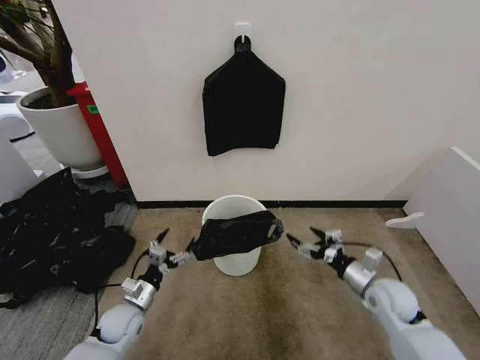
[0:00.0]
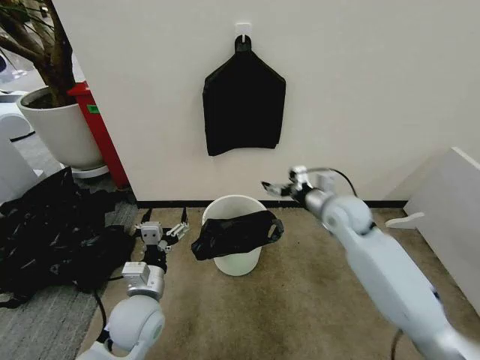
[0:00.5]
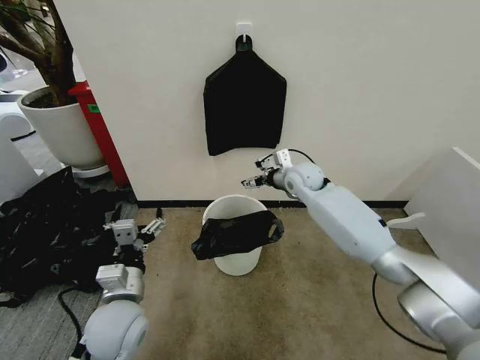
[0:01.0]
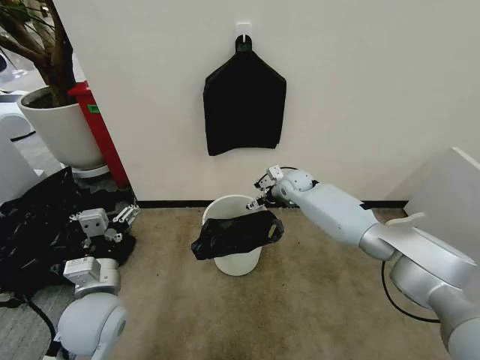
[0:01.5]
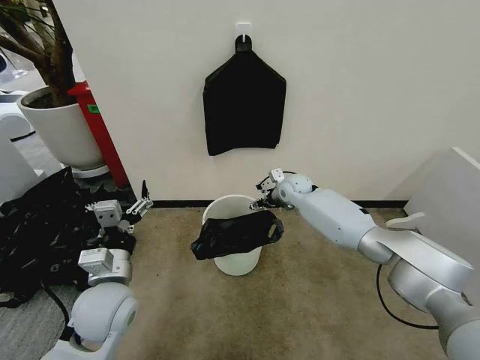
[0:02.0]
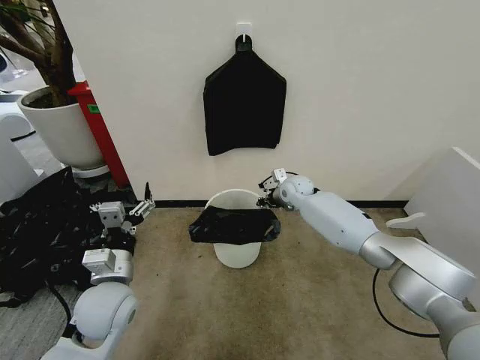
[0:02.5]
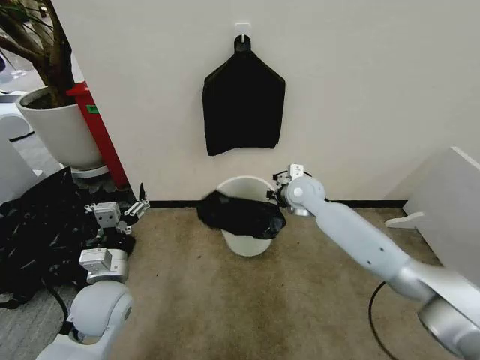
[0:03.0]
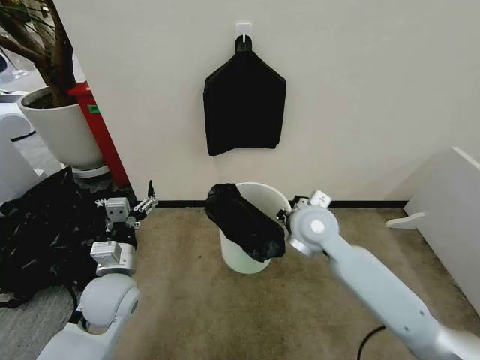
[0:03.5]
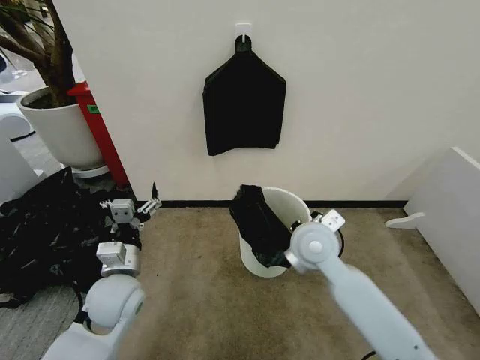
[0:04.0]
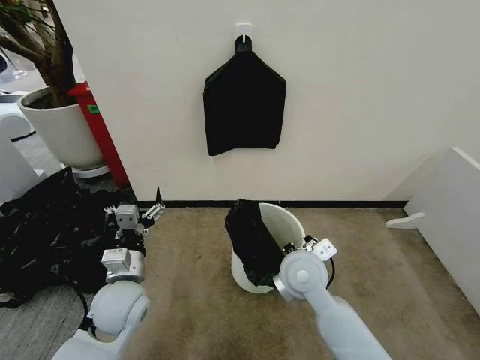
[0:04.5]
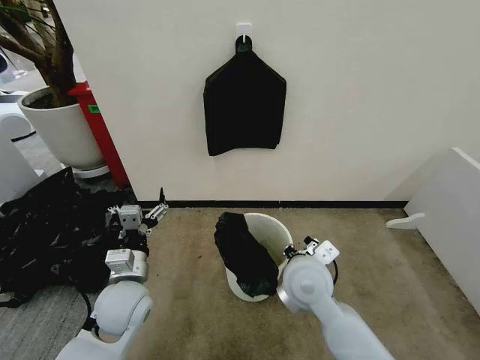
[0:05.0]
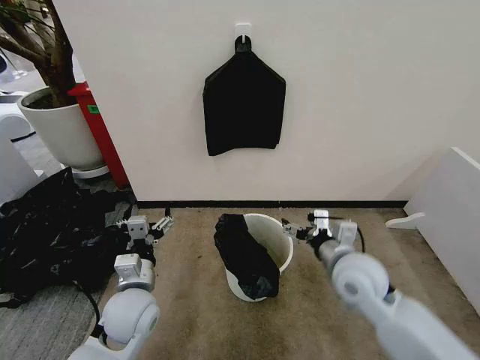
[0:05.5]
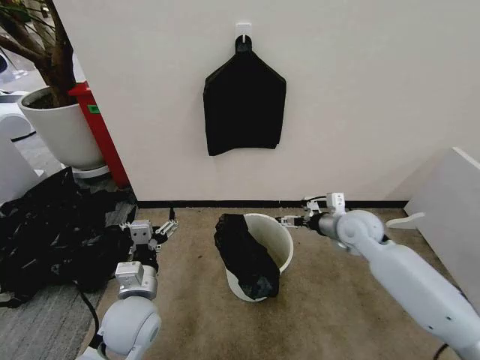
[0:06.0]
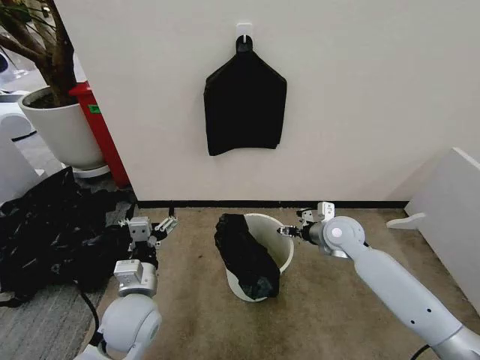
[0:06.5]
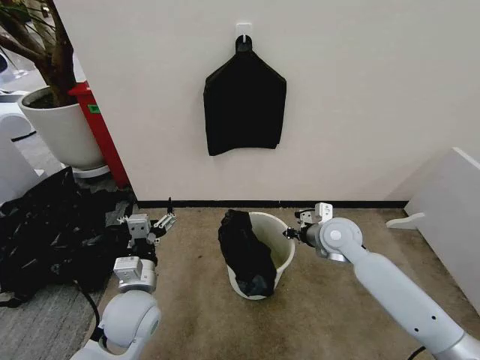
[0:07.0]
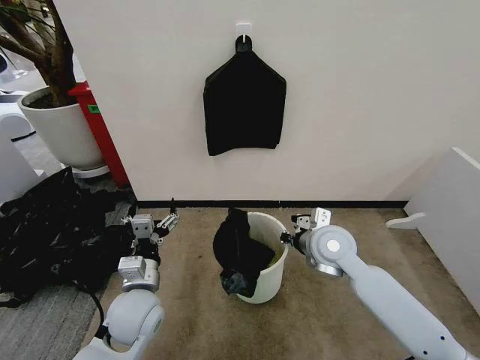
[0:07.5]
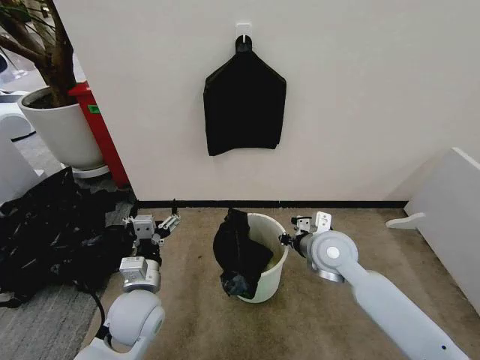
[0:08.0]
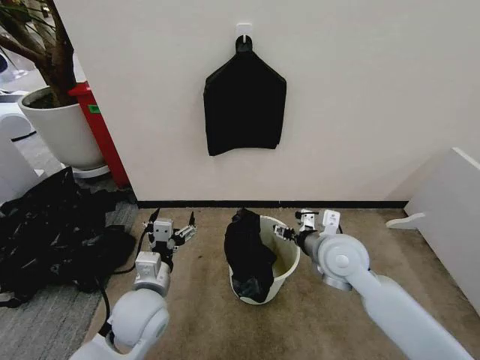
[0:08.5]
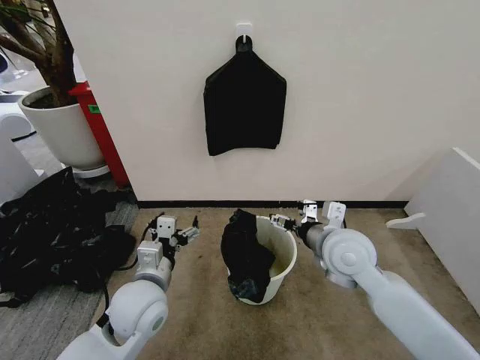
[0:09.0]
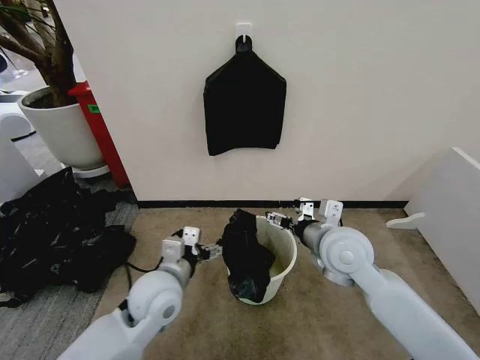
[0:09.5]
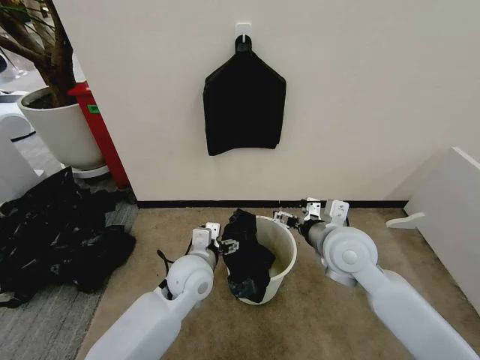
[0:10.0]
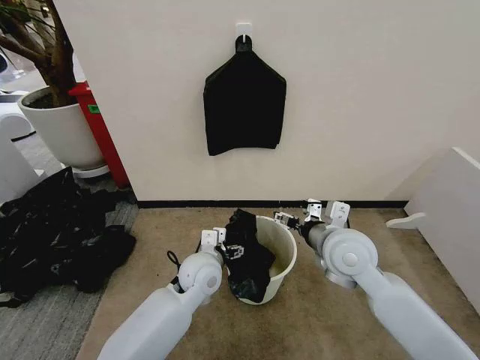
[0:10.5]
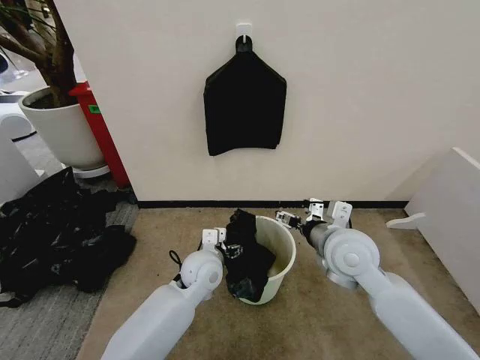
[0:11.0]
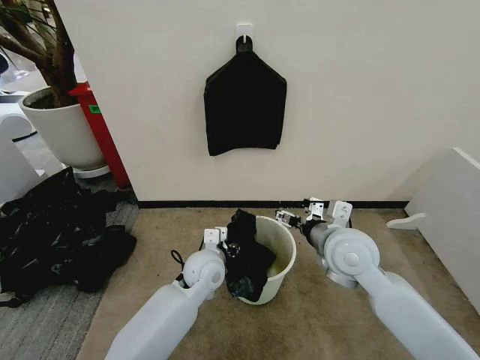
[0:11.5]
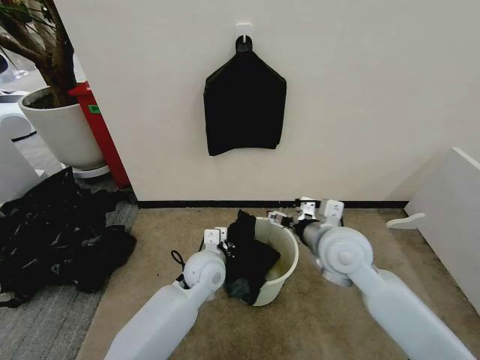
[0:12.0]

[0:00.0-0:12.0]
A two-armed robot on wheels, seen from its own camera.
Task of the whole recording: Place the garbage bag over the trash bin.
0:00.0 to 0:02.0: The left gripper is displaced upward by some 20 cm; the right gripper heads forward and to the left, covering roughly 35 cm, and closes its fingers.
0:02.0 to 0:04.0: The right gripper heads backward, covering about 25 cm, and closes.
0:04.0 to 0:06.0: The right gripper is displaced to the right and forward by approximately 15 cm, and opens. Meanwhile the left gripper shifts by roughly 5 cm.
0:06.0 to 0:08.0: The right gripper travels to the left and backward by about 10 cm, and closes.
0:08.0 to 0:10.0: The left gripper heads to the right and forward, covering approximately 10 cm; the right gripper travels upward by approximately 5 cm, and opens its fingers.
0:10.0 to 0:12.0: The left gripper moves some 5 cm, and closes up.

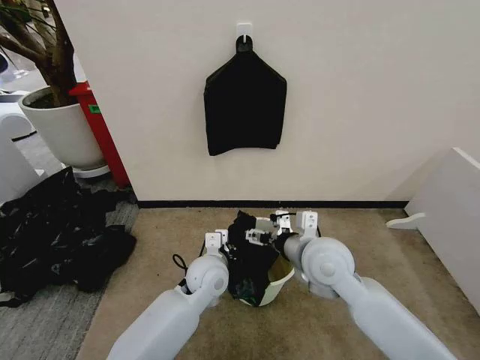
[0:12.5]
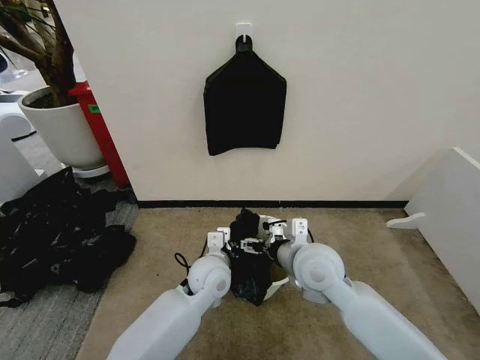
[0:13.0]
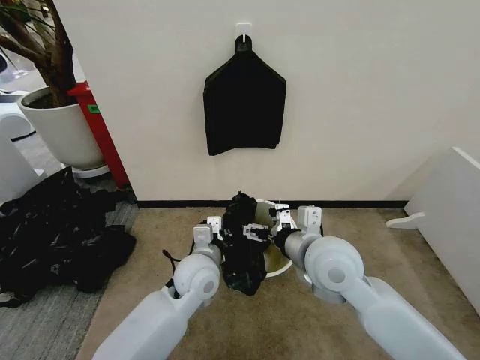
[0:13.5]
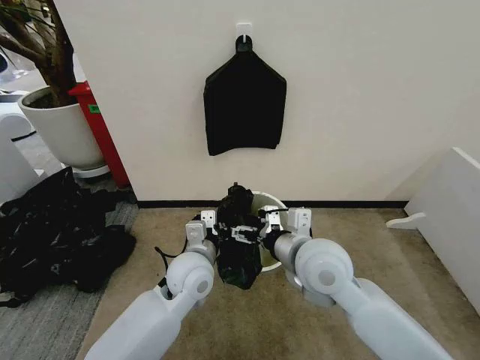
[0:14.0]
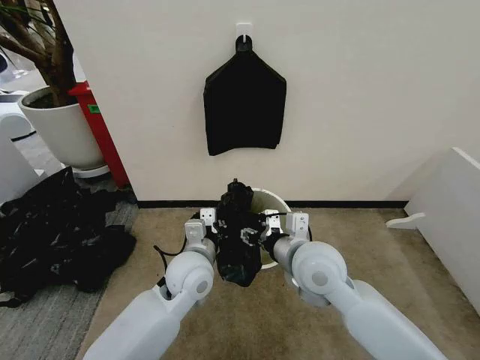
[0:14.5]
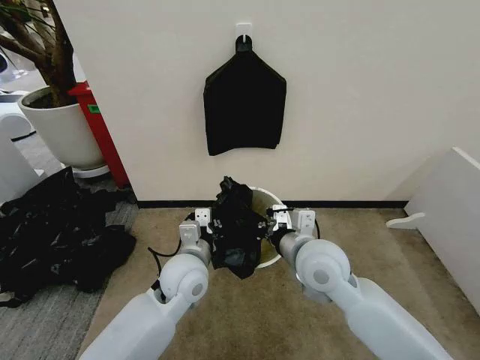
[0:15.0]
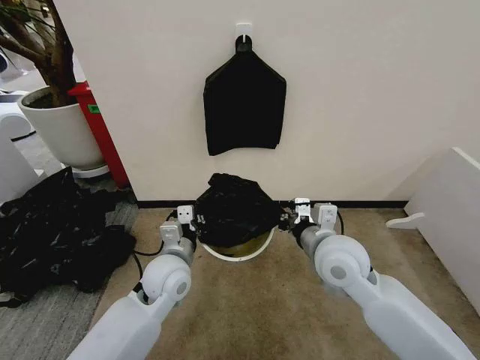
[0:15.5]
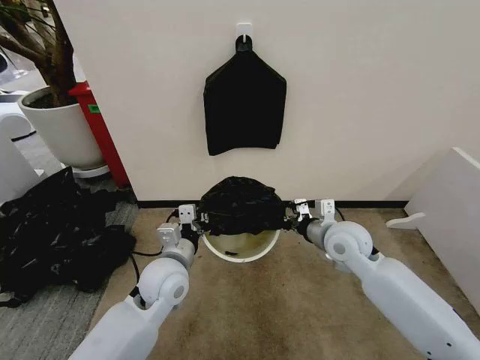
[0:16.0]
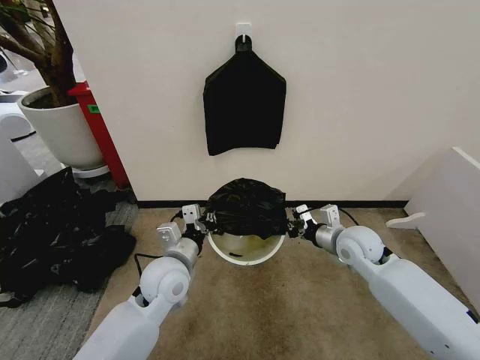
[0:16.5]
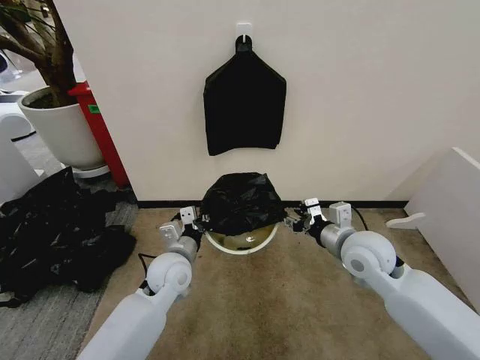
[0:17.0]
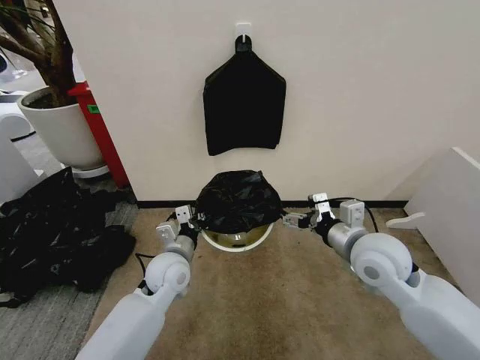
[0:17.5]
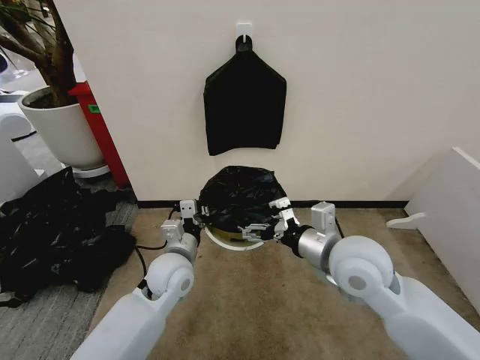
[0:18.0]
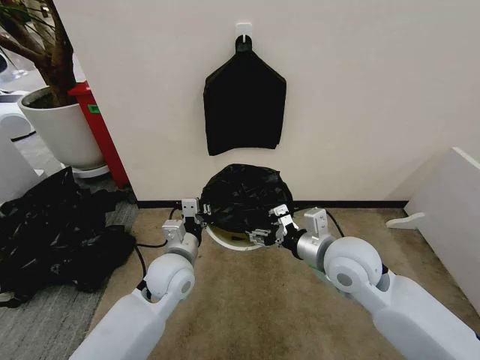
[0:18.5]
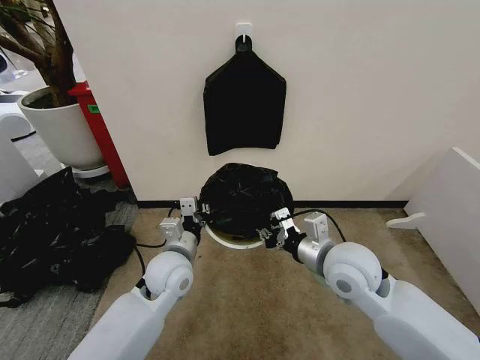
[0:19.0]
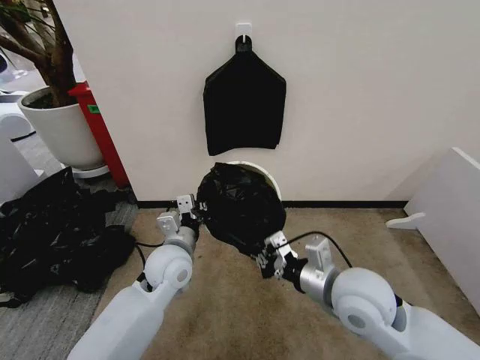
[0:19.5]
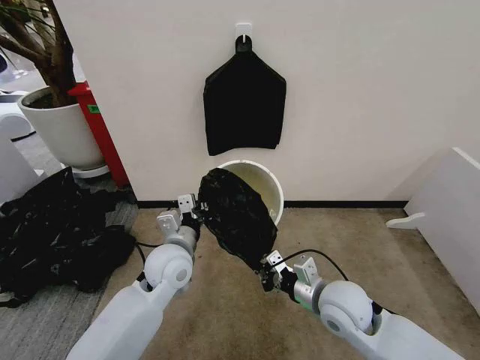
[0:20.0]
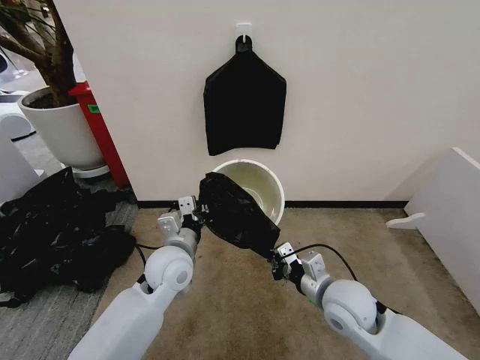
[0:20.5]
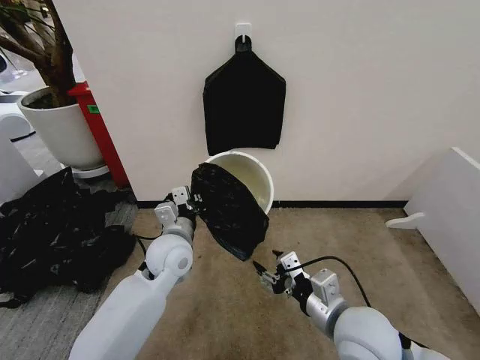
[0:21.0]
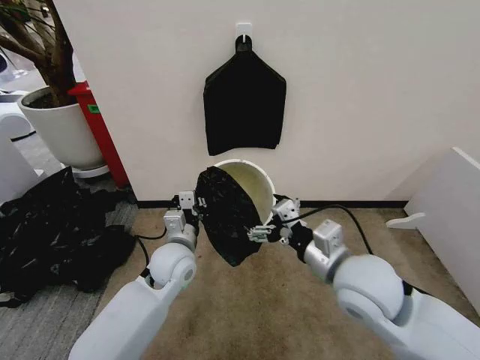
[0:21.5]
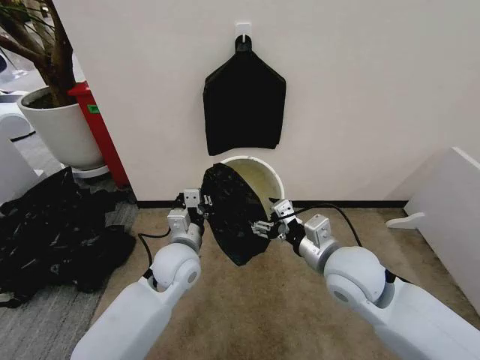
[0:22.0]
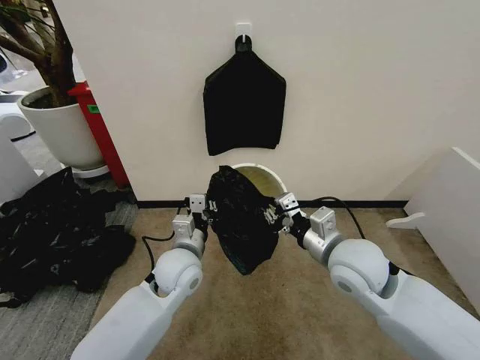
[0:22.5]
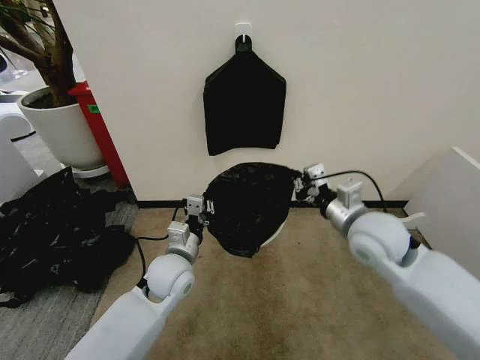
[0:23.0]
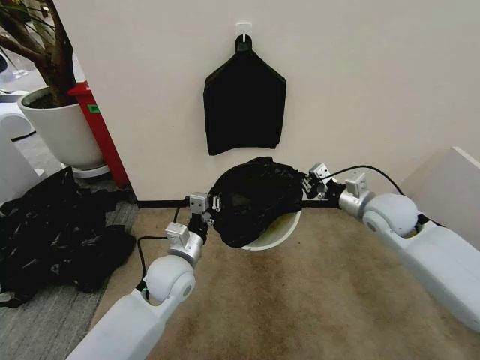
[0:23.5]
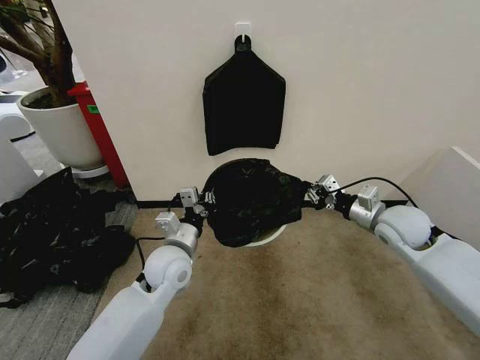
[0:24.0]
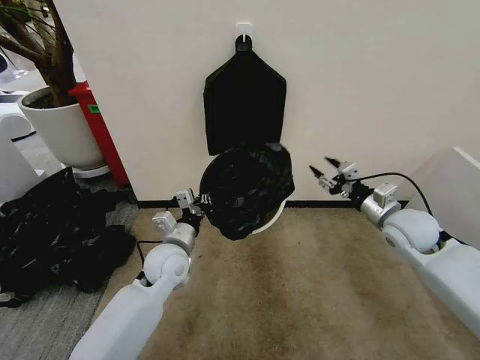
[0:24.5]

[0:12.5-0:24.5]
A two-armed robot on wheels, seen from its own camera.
Task of the whole recording: Place the garbage bag over the trash bin.
0:12.5 to 0:14.5: The left gripper shifts some 5 cm upward, while the right gripper closes up.
0:14.5 to 0:16.5: The right gripper is displaced to the right, forward and downward by some 20 cm, and closes its fingers. Meanwhile the left gripper ends up approximately 5 cm from where it was.
0:16.5 to 0:18.5: The right gripper heads backward, upward and to the left, covering some 15 cm, and opens.
0:18.5 to 0:20.5: The right gripper heads downward, covering approximately 10 cm, and closes its fingers.
0:20.5 to 0:22.5: The right gripper moves upward, roughly 10 cm, and opens, then closes again.
0:22.5 to 0:24.5: The right gripper moves to the right and forward, approximately 20 cm.

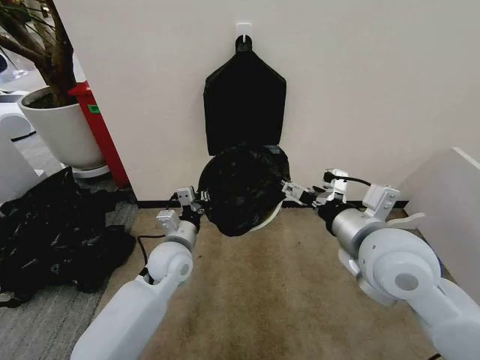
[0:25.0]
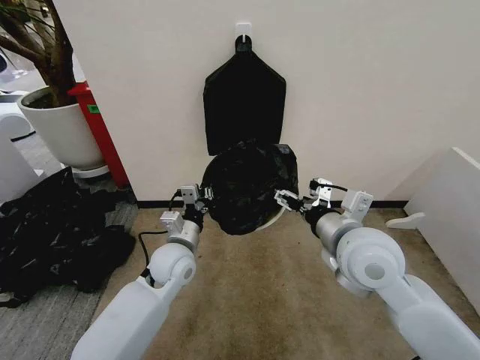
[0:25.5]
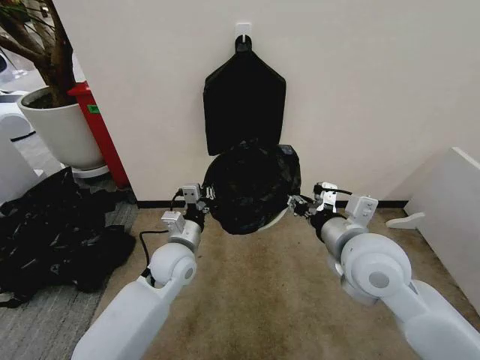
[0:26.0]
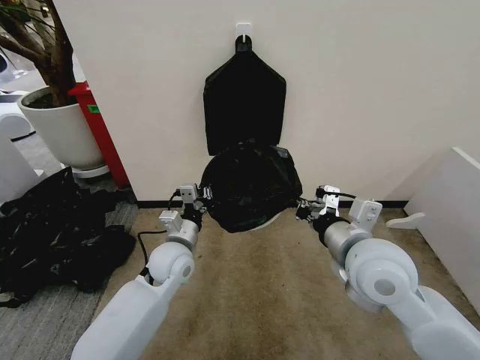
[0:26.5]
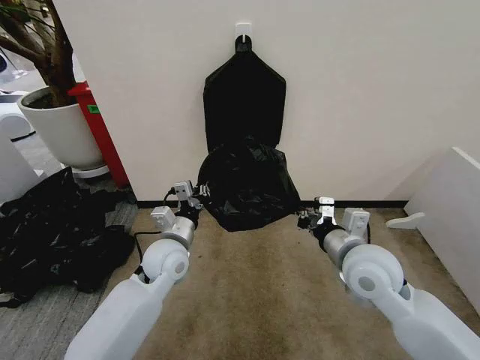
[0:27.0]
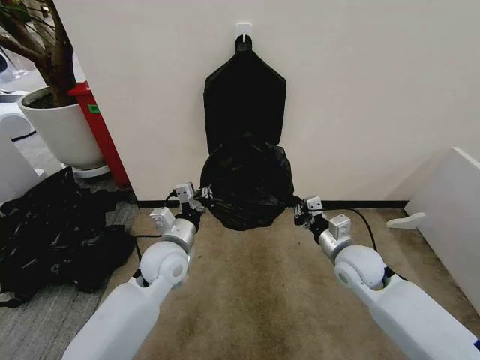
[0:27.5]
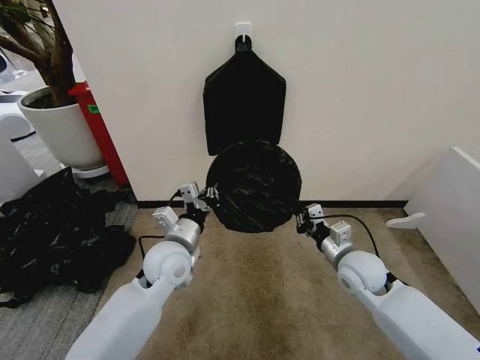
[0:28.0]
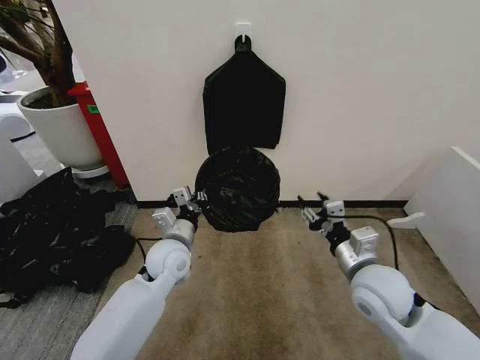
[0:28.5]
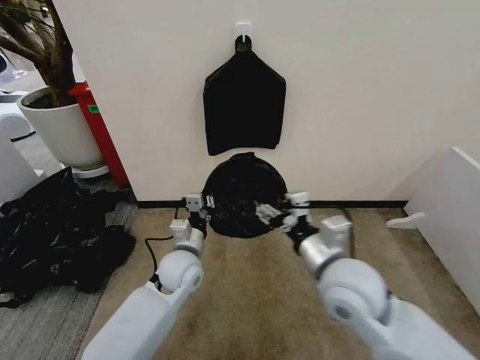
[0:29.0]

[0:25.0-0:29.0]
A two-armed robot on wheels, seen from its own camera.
Task of the whole recording: Place the garbage bag over the trash bin.
0:25.0 to 0:27.0: The right gripper moves downward, about 10 cm, and closes up.
0:27.0 to 0:29.0: The left gripper shifts by approximately 5 cm. The right gripper is displaced to the left by about 5 cm, goes downward and returns, about 10 cm each way, and opens.
